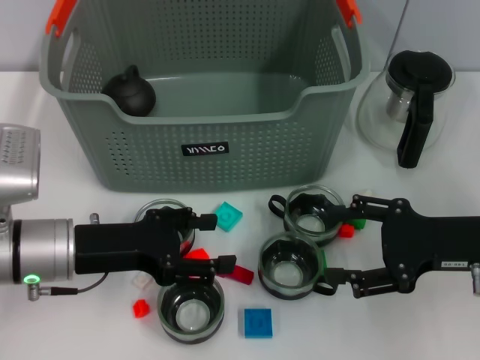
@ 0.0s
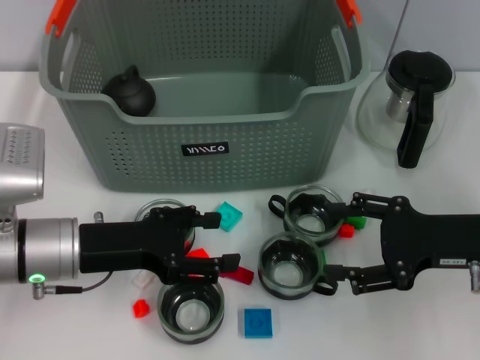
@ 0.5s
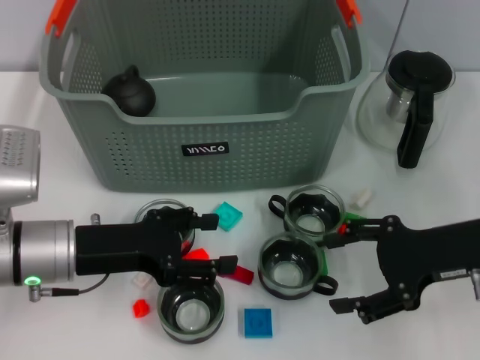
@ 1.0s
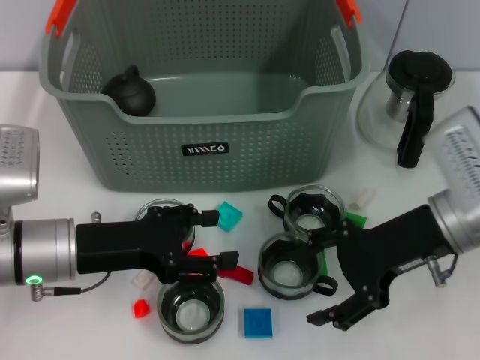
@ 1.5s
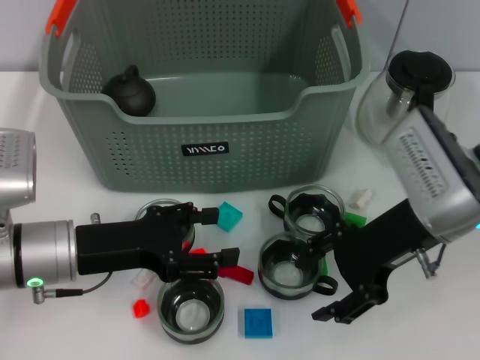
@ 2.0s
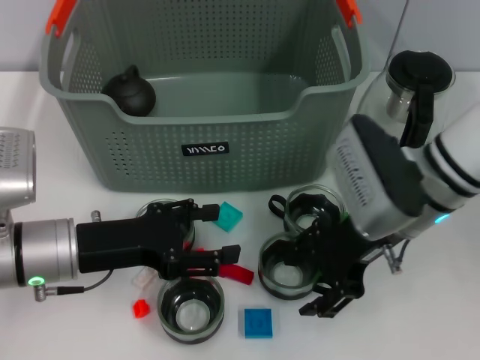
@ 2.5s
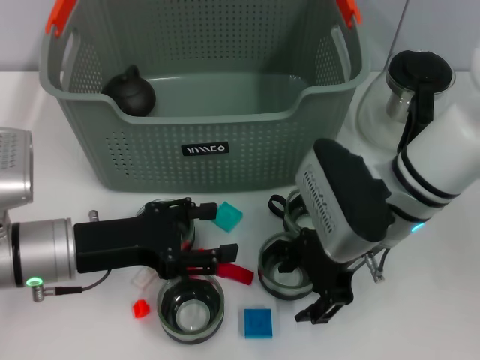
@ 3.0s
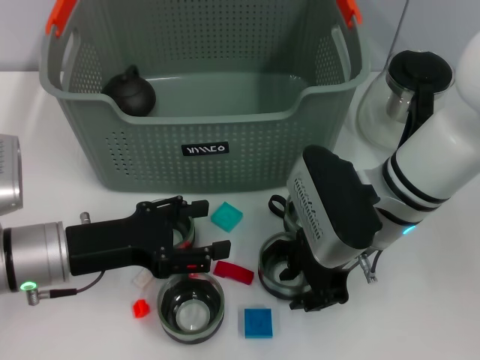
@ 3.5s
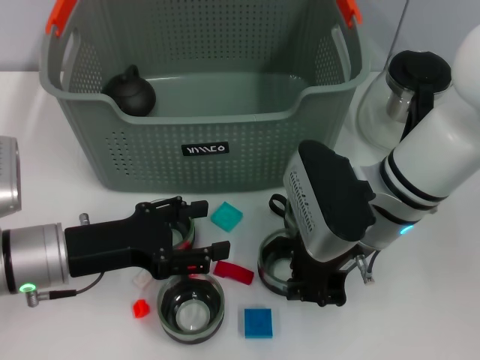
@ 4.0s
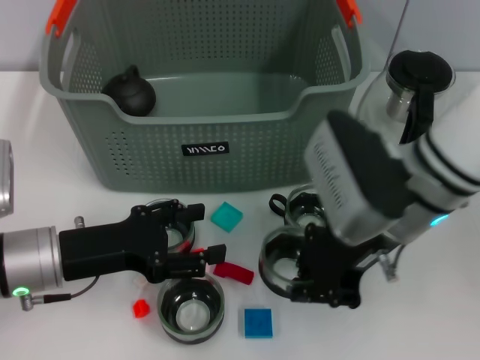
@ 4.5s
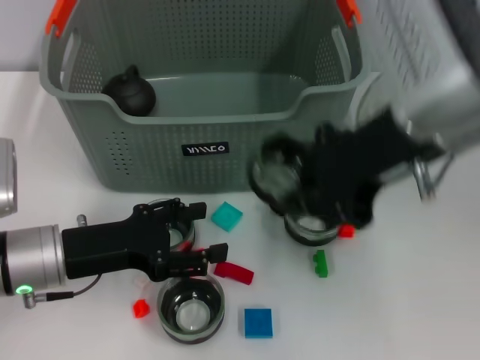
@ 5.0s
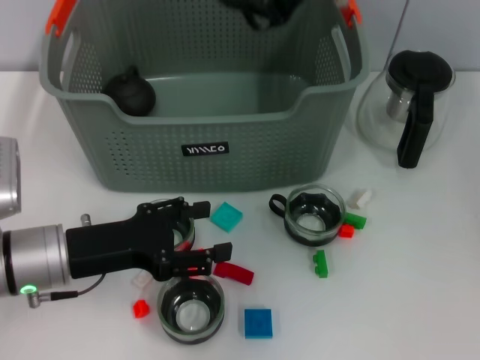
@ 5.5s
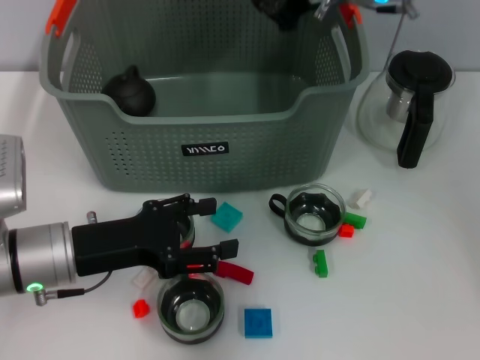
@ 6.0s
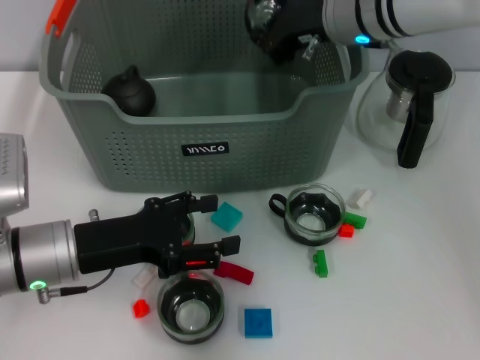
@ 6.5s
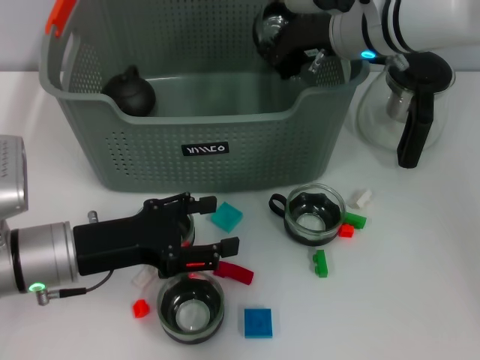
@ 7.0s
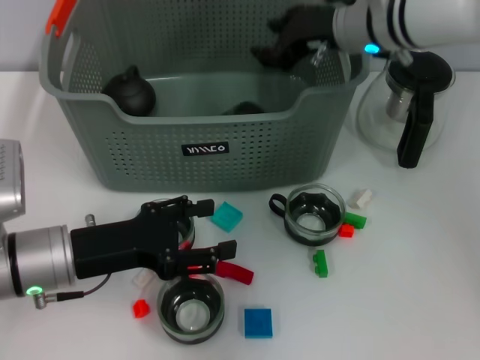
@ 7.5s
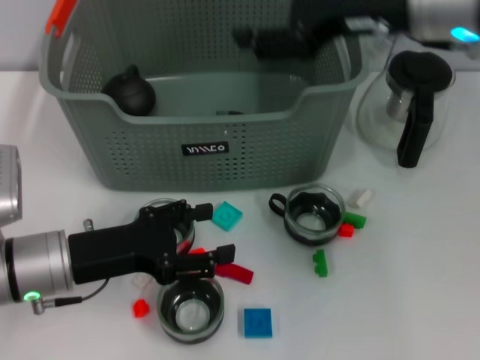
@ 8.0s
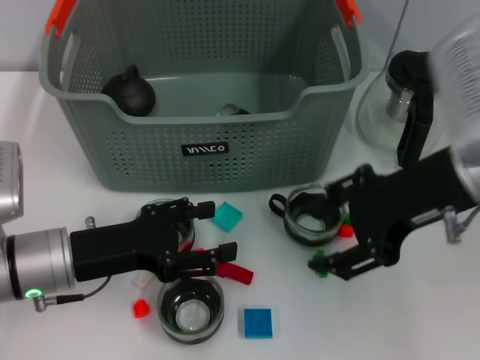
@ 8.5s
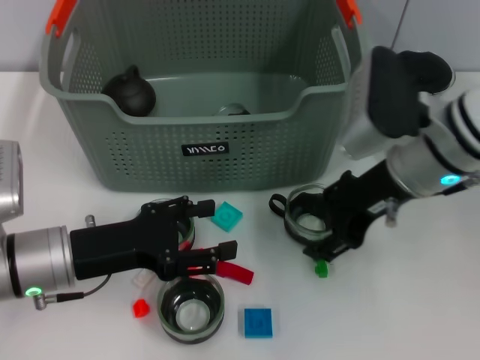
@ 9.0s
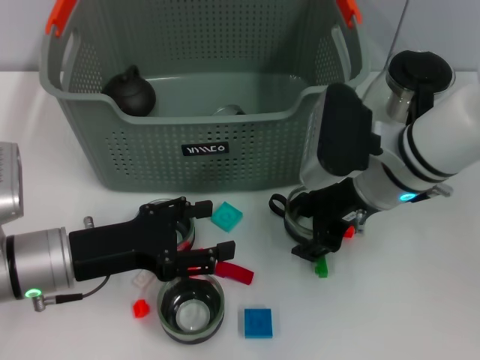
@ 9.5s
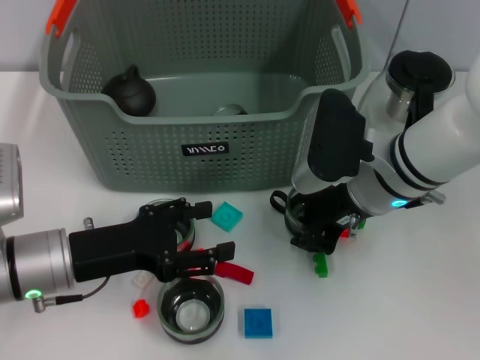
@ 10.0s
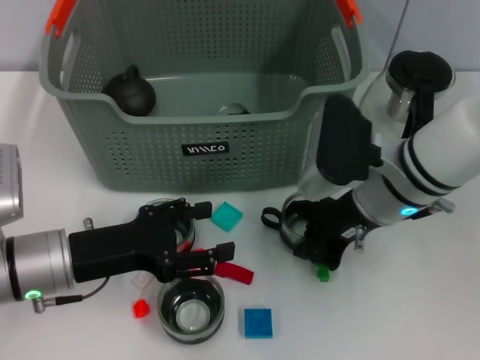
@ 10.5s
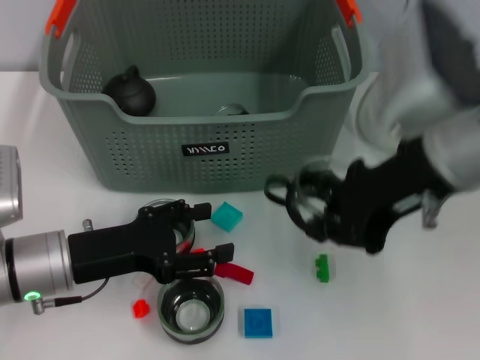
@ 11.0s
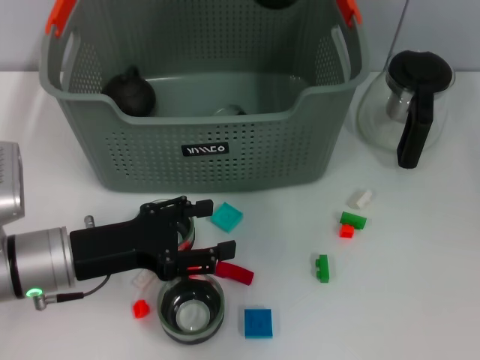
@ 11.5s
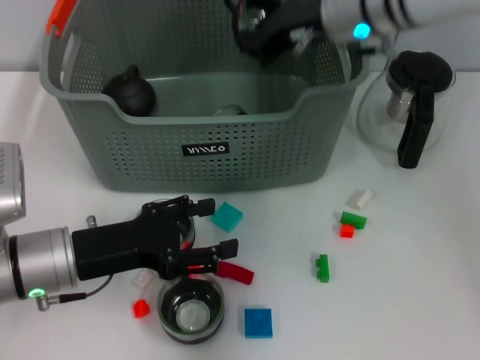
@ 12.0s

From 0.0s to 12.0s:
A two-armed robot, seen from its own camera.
Task of the whole recording: pick up the teacup on the table and place it into the storage bin, pick up the block on the table and place it into the storage bin.
Step, from 0.0s to 3.5s: Grasp the cup with right gripper.
Step, from 4.0s to 7.0s: Place the cup in the storage box with right gripper.
Step, from 7.5s to 10.0s: Grasp the cup with right gripper.
From 0.0s to 2.0s: The right gripper shifts approximately 10 cm to the left.
From 2.0s to 4.0s: The right gripper heads to the left, covering roughly 5 cm, and closes its fingers.
From 4.0s to 6.0s: The right gripper goes some 20 cm forward and upward.
From 6.0s to 8.0s: The right gripper heads backward, covering roughly 10 cm, and opens up.
From 8.0s to 10.0s: The right gripper goes roughly 15 cm downward, and closes.
From 10.0s to 12.0s: The right gripper travels forward and upward by some 15 cm, and closes.

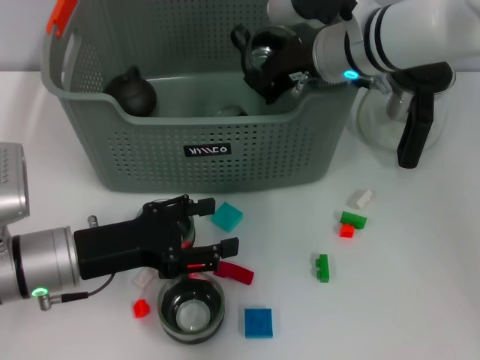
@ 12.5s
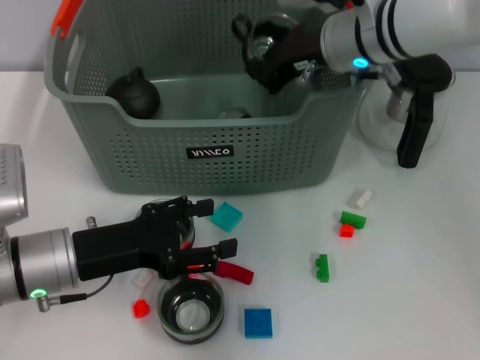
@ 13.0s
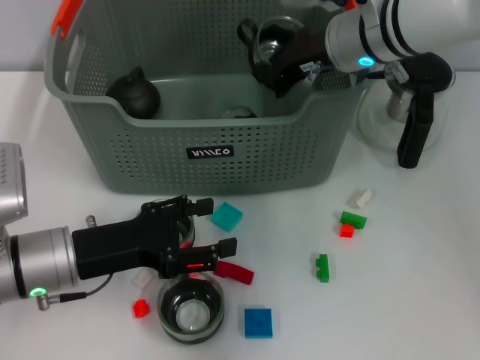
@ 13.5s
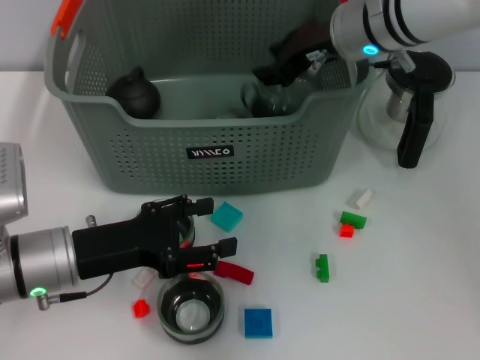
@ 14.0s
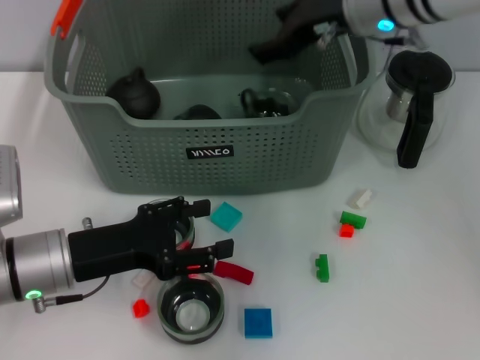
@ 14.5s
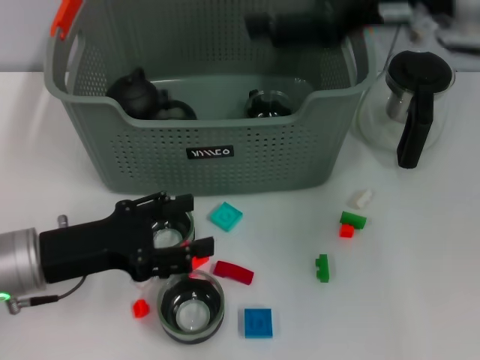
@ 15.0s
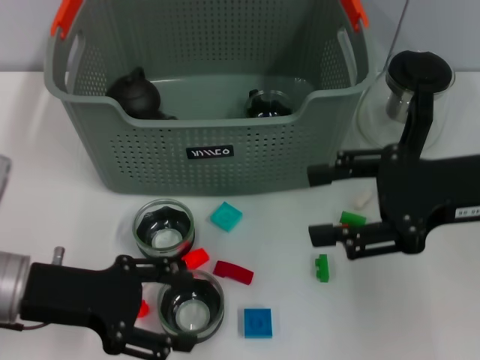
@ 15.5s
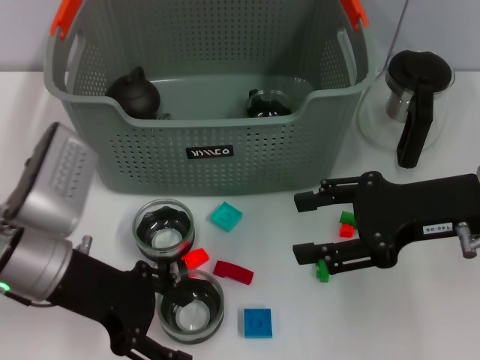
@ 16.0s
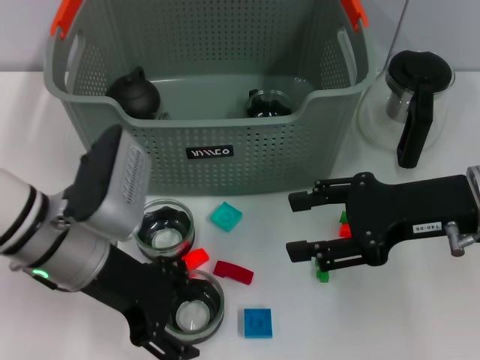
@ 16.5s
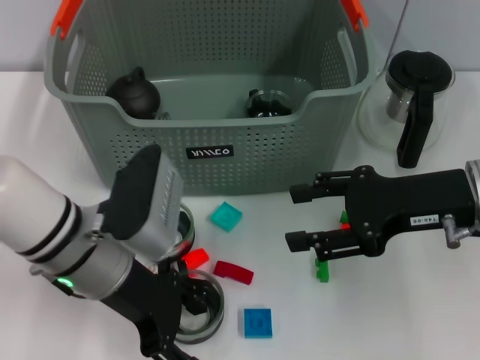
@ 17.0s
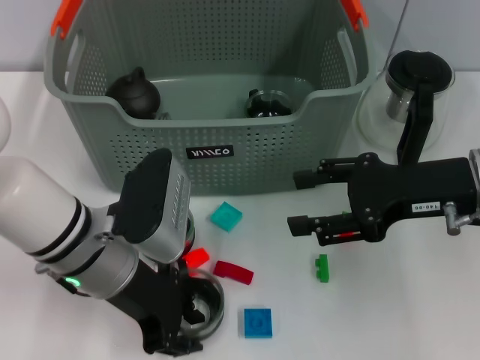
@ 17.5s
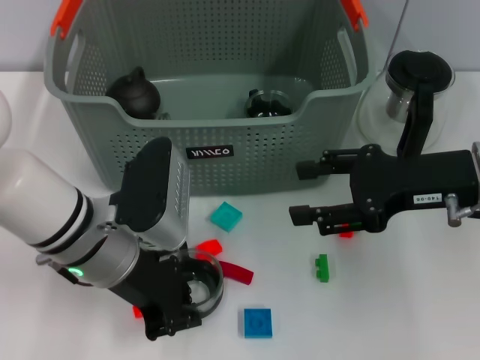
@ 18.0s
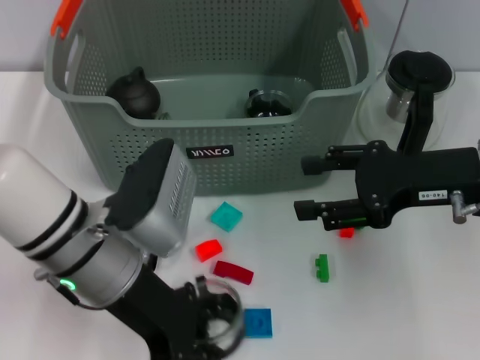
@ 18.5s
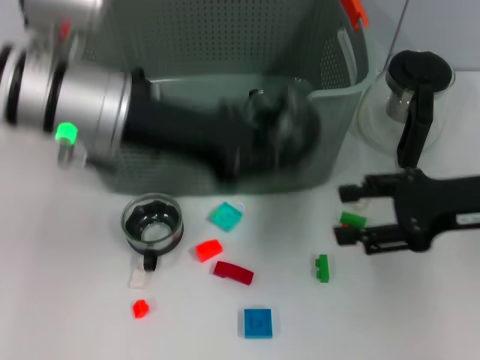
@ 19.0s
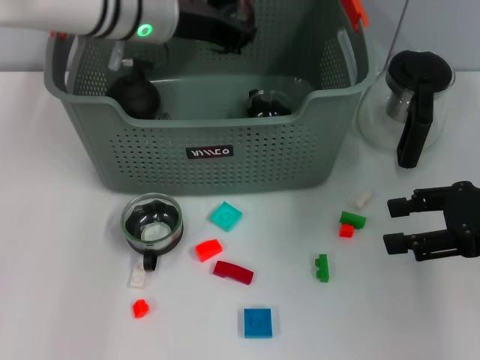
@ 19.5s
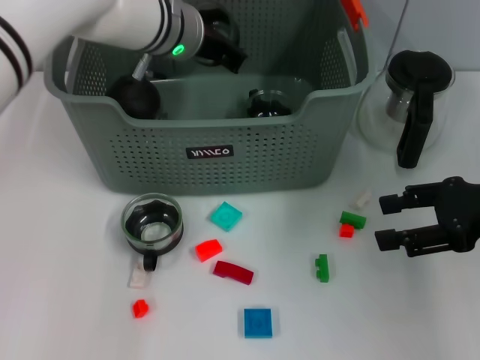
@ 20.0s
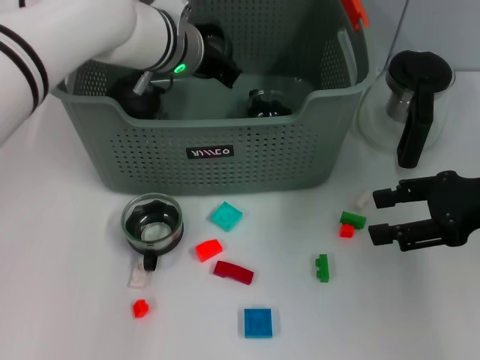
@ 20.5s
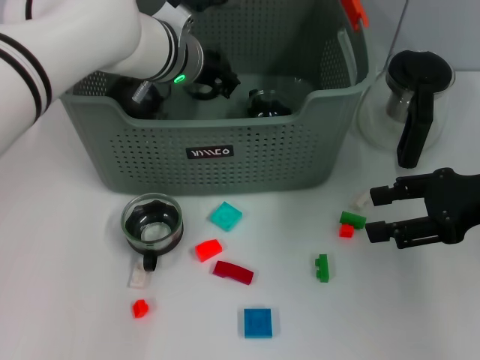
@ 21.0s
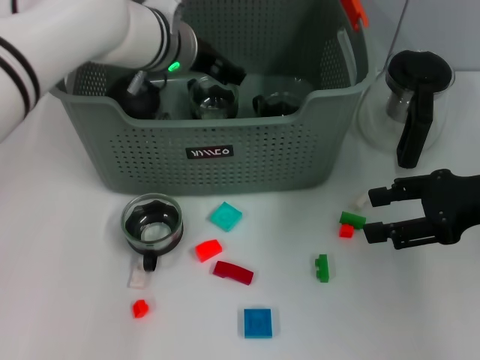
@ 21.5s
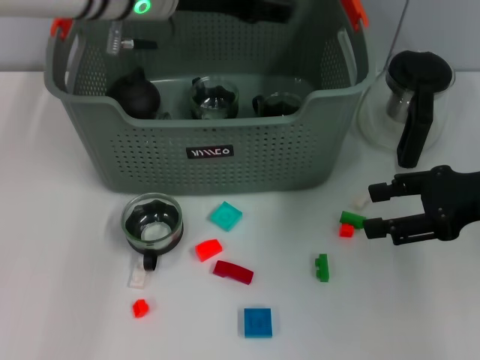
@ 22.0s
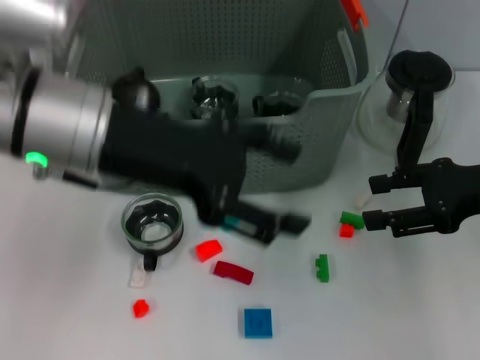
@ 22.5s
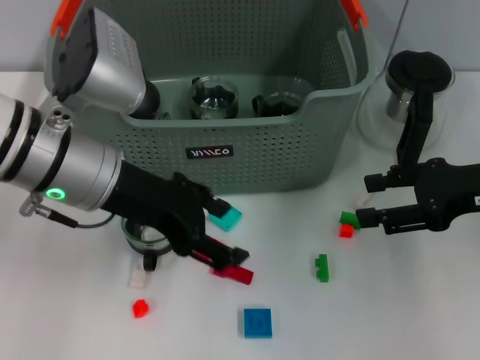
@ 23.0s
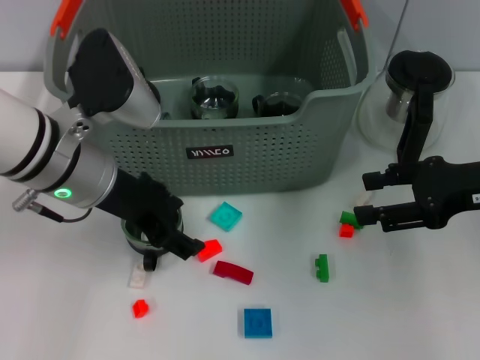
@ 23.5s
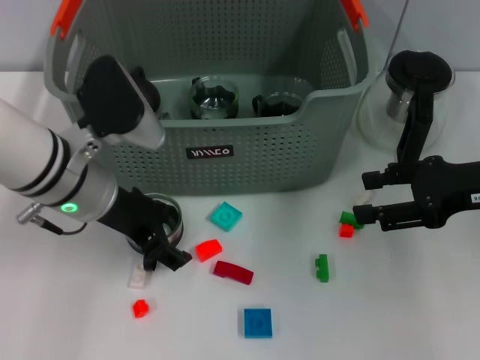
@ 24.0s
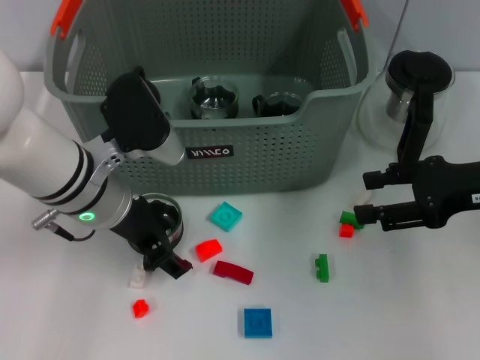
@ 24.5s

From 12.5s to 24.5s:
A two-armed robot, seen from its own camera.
Task of the whole recording: pick up the teacup on the table and place it into the storage bin, pick up the block on the table and place it into the storage bin.
Step, from 14.5s to 17.5s: Grasp the cup with left gripper.
Step, from 18.0s to 21.0s: Place the cup in the storage box with left gripper.
From 12.5s to 14.5s: The right gripper goes roughly 5 cm upward, and opens up.
From 14.5s to 16.5s: The right gripper moves backward, to the right and downward, roughly 20 cm. The left gripper heads upward, covering approximately 5 cm.
From 16.5s to 18.5s: The left gripper closes its fingers.
From 18.5s to 20.5s: The right gripper is displaced to the right by roughly 5 cm; the left gripper is displaced forward by about 20 cm.
From 20.5s to 22.5s: The left gripper travels backward, upward and to the left by approximately 20 cm, and opens.
From 22.5s to 24.5s: The left gripper moves downward, roughly 10 cm.

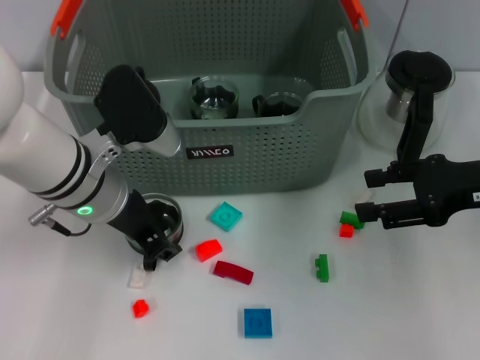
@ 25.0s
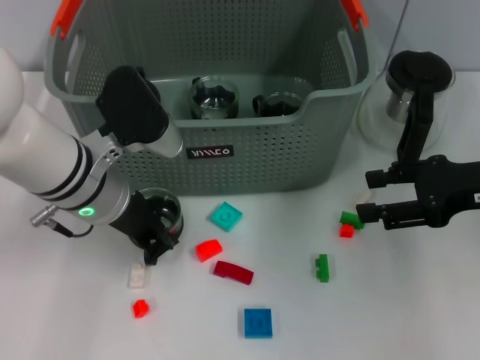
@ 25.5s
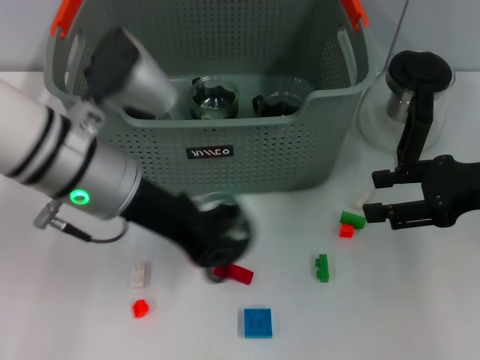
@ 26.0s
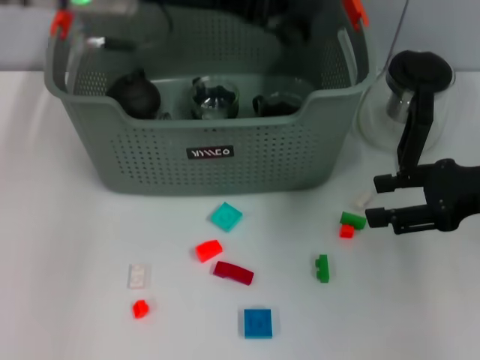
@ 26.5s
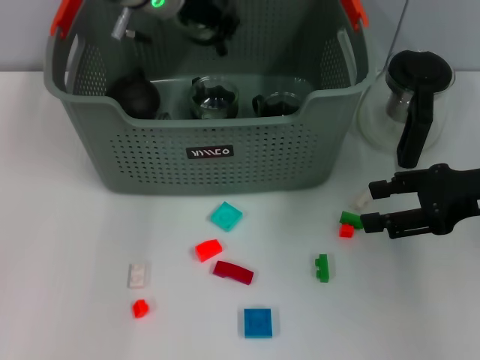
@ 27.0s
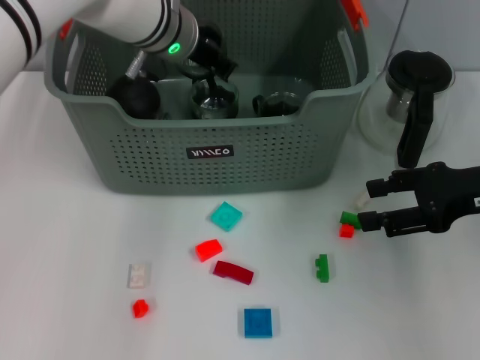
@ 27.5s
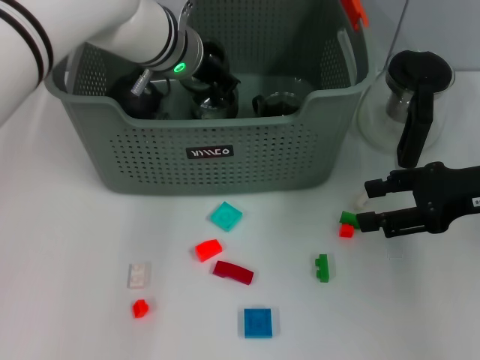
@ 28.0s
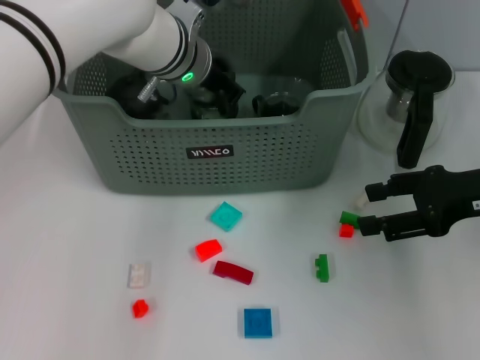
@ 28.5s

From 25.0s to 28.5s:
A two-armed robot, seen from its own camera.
Task of the whole recording: pick up the teacup on the table and place it into the storage bin, pick up the block on the table and place it into the storage bin.
From 25.0s to 27.0s: The left gripper travels forward and upward by some 15 cm, and closes its fingers.
From 27.0s to 28.5s: The left gripper is displaced downward by some 5 cm.
